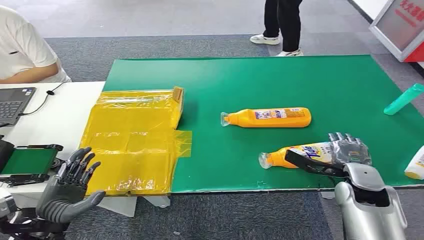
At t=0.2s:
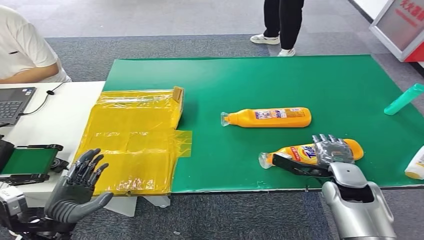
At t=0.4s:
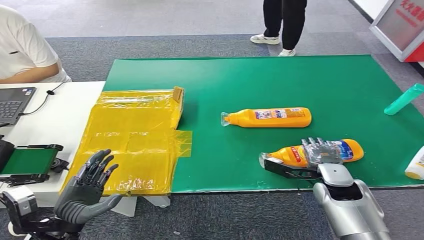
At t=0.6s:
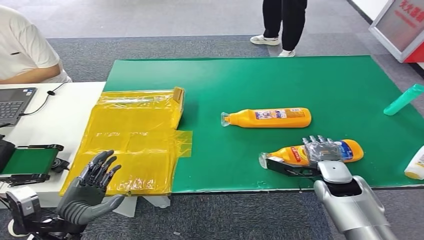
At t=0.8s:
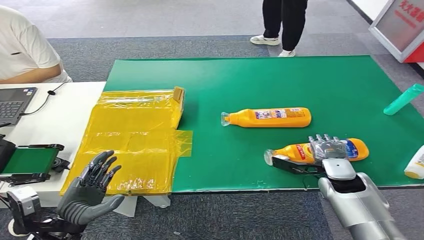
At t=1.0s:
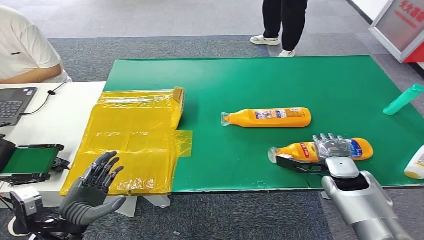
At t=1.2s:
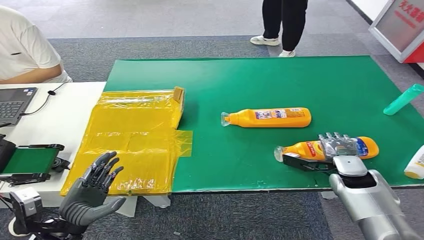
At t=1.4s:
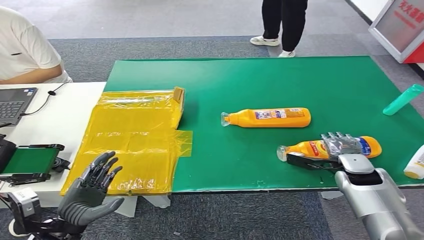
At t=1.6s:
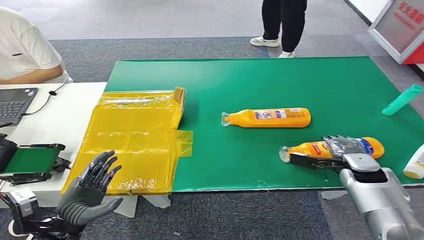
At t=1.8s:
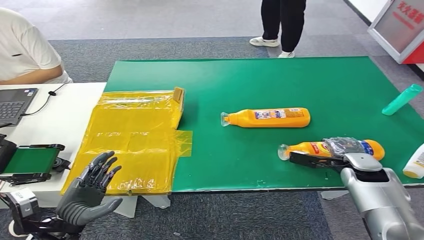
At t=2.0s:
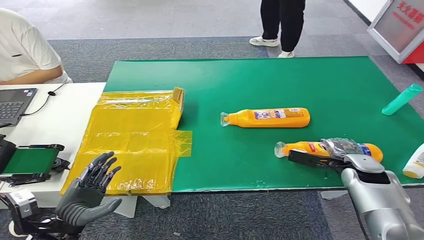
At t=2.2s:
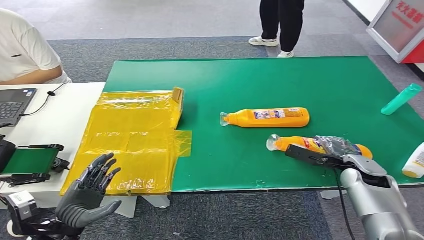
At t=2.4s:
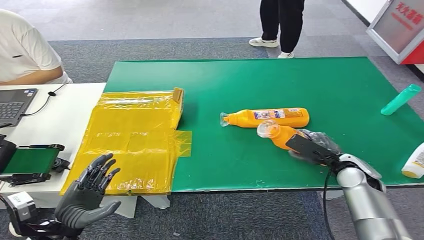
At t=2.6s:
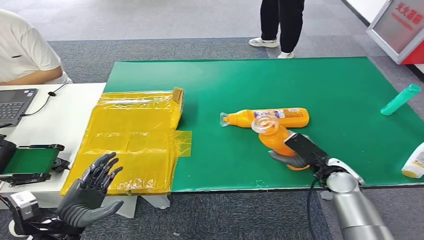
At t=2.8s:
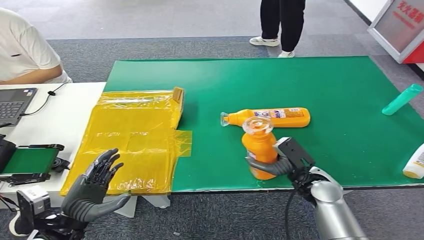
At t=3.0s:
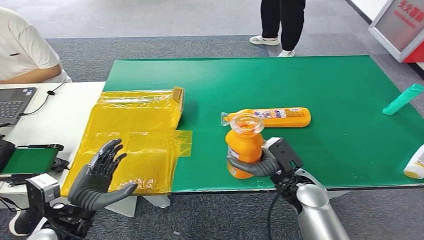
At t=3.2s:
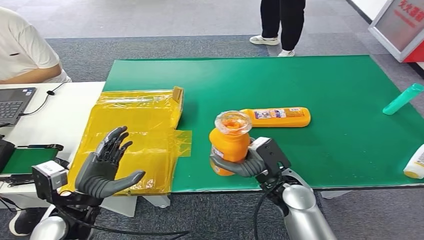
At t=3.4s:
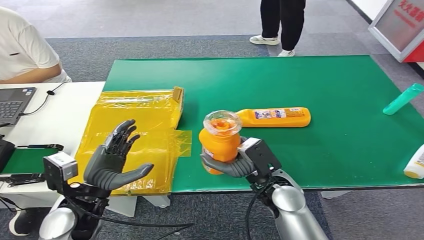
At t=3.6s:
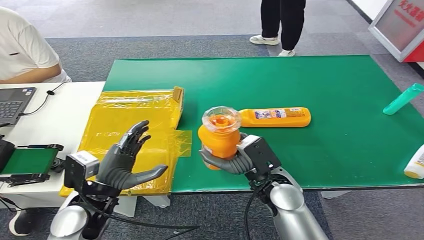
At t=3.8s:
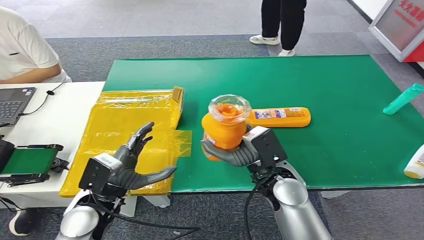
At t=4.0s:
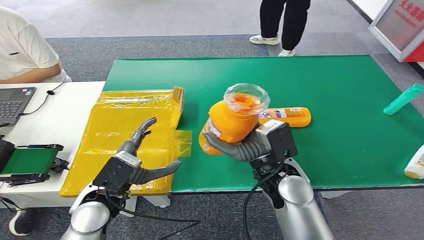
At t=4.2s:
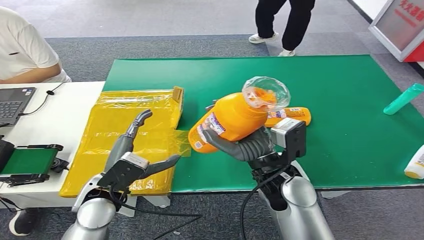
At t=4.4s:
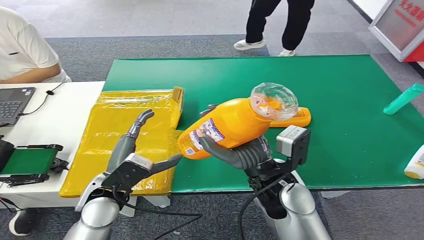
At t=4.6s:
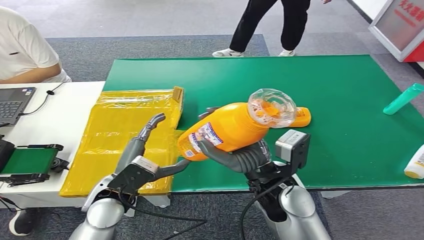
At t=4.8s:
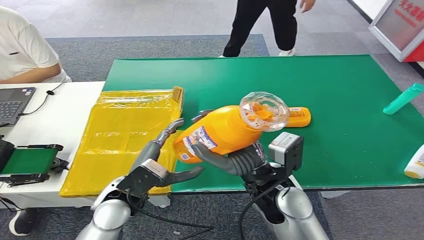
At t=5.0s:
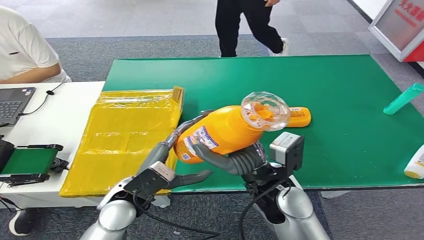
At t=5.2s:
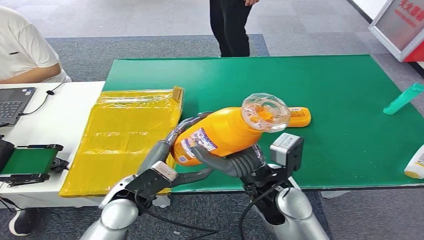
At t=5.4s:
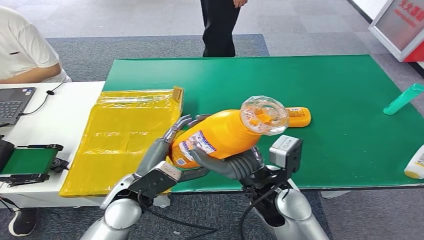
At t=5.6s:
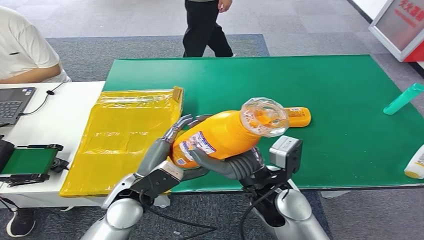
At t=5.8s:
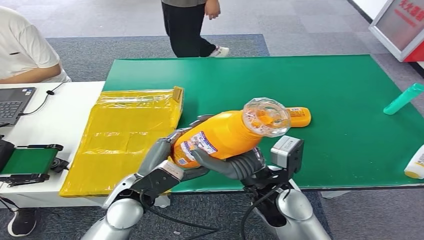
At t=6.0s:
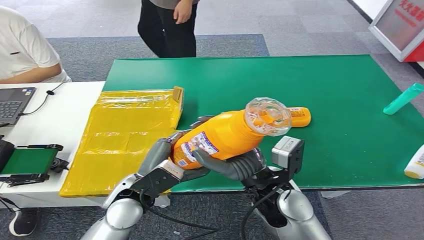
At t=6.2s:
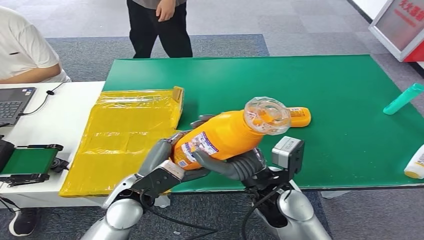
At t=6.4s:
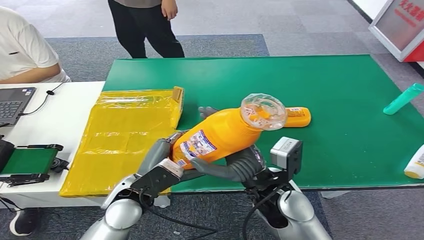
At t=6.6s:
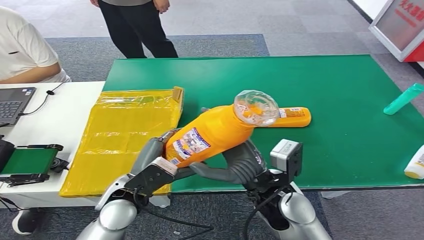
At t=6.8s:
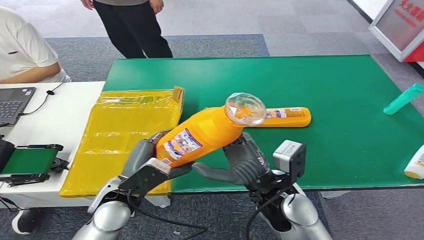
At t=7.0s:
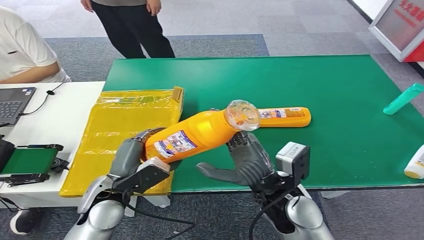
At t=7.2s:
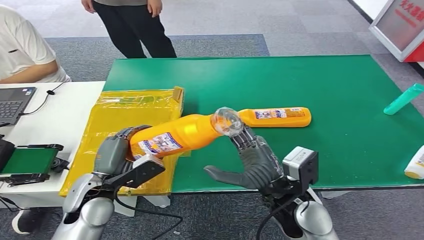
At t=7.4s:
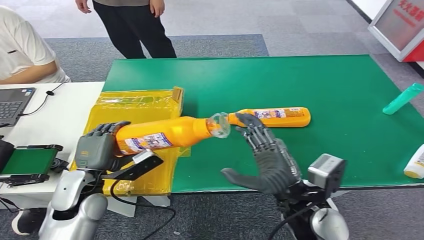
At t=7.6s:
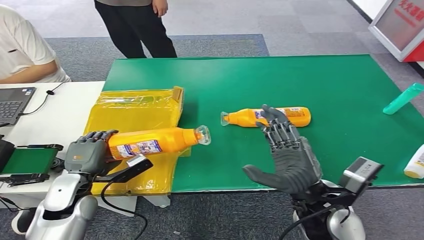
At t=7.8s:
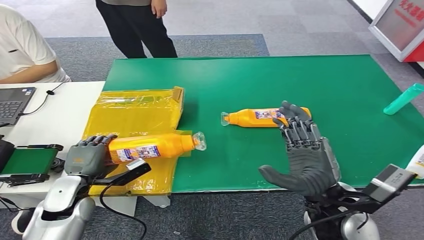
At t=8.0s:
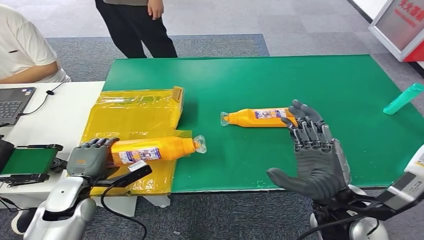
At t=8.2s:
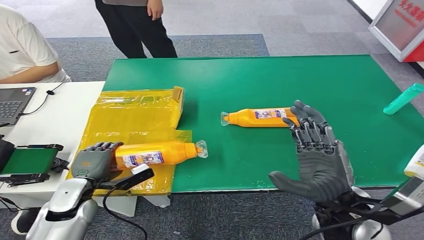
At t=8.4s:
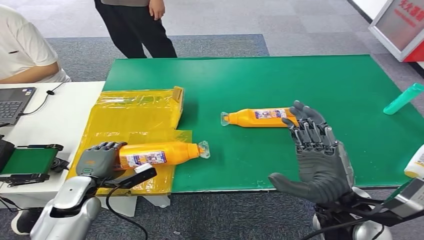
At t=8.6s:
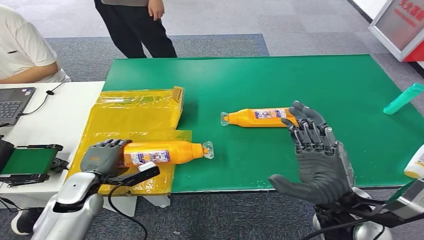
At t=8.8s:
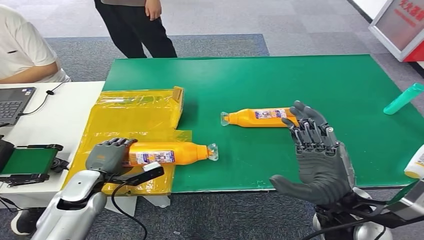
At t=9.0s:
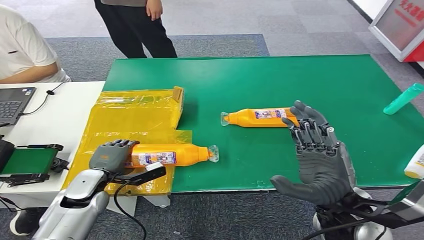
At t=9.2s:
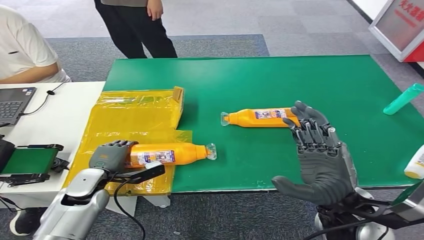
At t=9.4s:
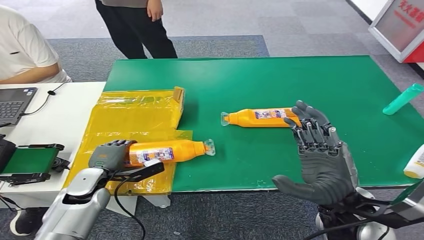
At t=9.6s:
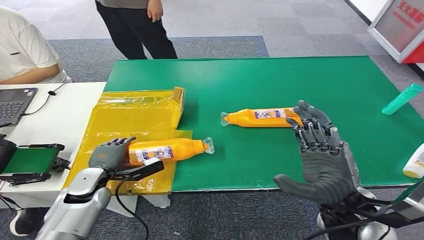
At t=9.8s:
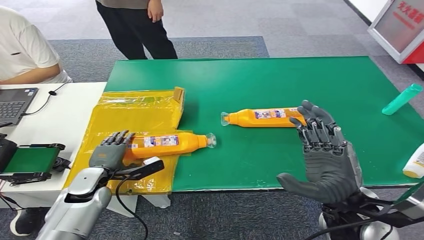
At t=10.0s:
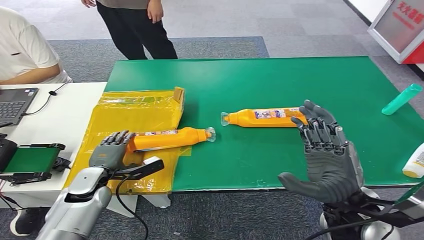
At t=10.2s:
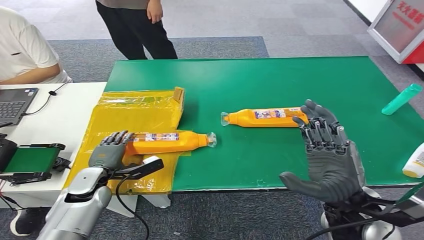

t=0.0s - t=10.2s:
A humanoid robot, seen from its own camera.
Step, t=0.0s - t=3.6s: Pick up the bottle from the table.
t=1.4s - t=3.0s: The right hand moves to the left and backward, about 15 cm.
t=8.8s - t=10.2s: The hands make only small movements.

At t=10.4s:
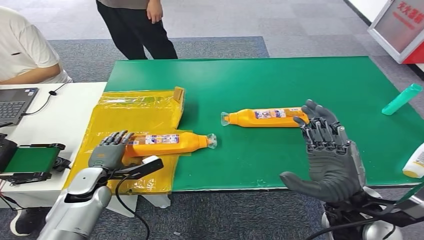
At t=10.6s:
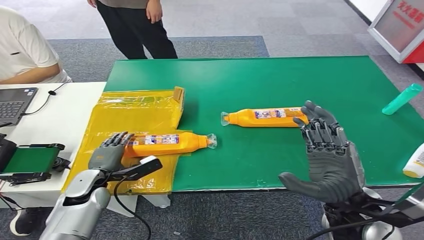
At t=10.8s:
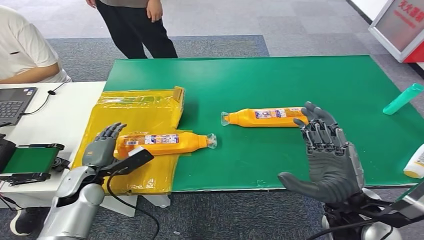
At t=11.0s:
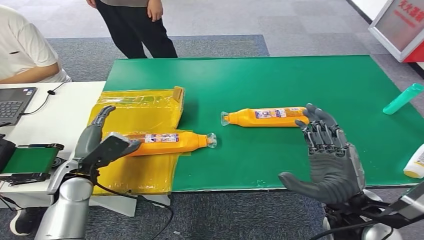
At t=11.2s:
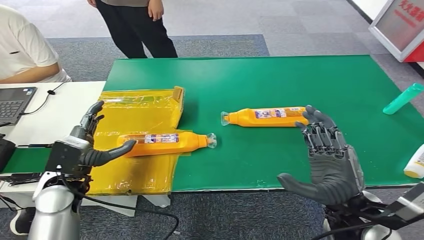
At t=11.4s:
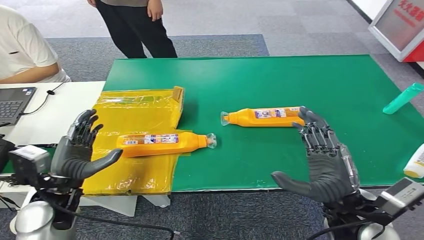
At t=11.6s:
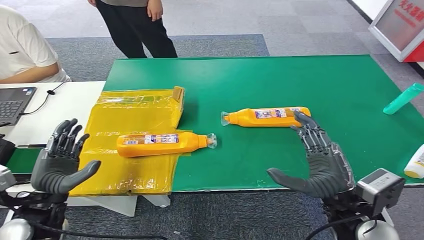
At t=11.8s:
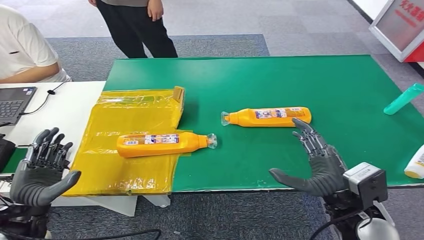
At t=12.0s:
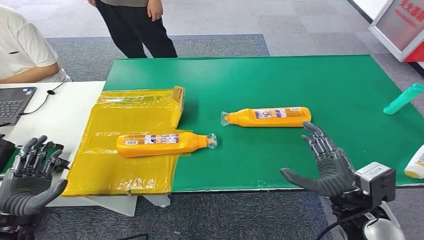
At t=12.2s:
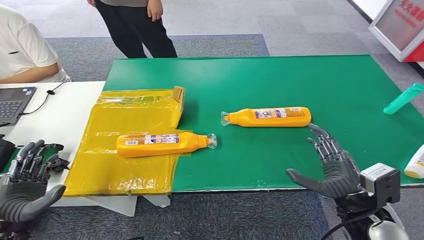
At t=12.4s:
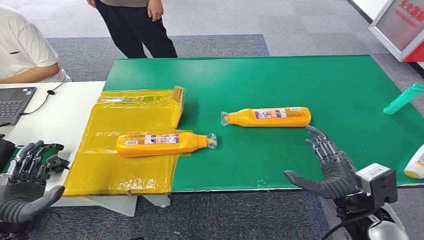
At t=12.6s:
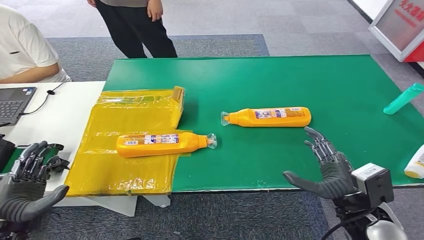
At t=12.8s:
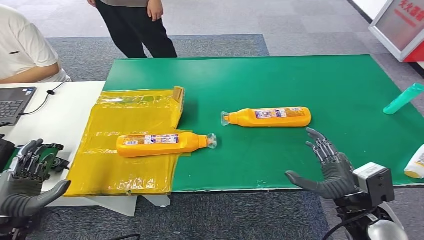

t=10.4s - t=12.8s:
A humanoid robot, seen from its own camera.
Step, t=10.4s - t=12.8s: Turn the bottle to the front side.
t=10.4s - t=11.6s: The left hand heads upward and backward, covering some 15 cm.
t=11.6s - t=12.8s: The left hand is displaced to the left and backward by roughly 10 cm, while the right hand goes some 5 cm downward.

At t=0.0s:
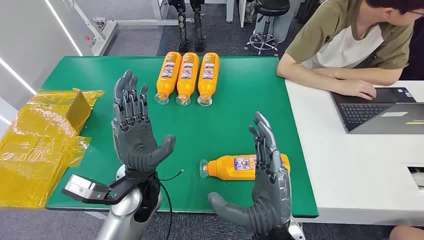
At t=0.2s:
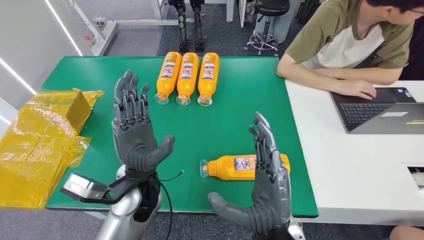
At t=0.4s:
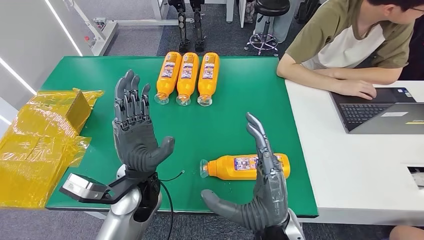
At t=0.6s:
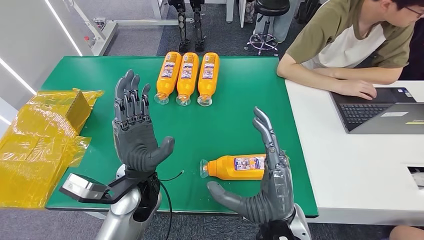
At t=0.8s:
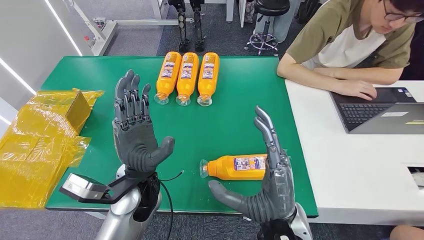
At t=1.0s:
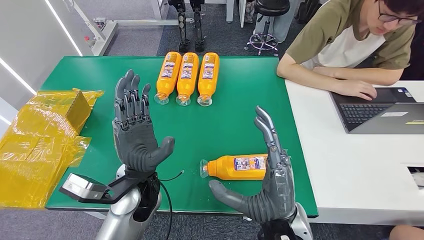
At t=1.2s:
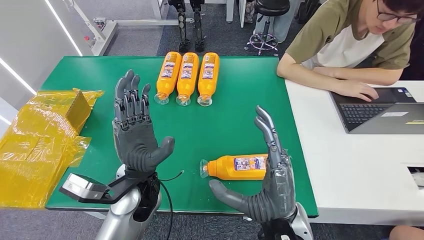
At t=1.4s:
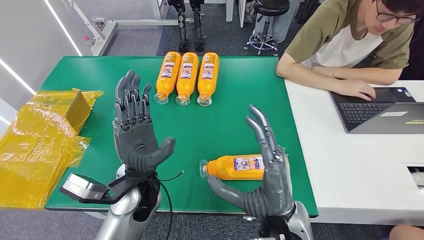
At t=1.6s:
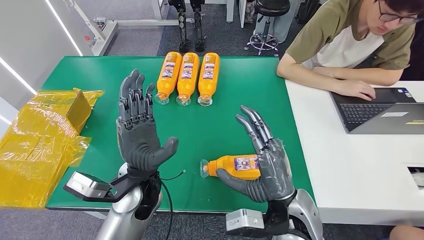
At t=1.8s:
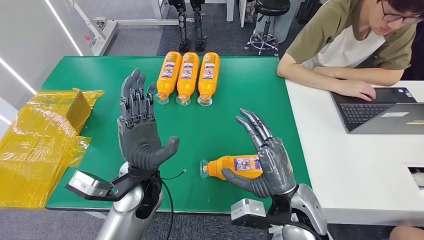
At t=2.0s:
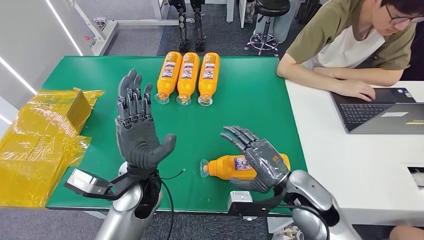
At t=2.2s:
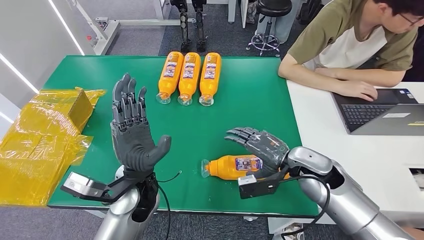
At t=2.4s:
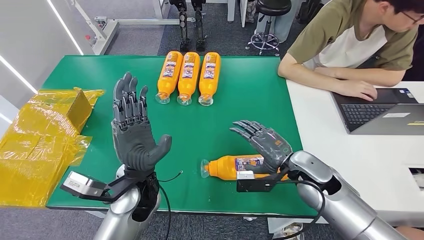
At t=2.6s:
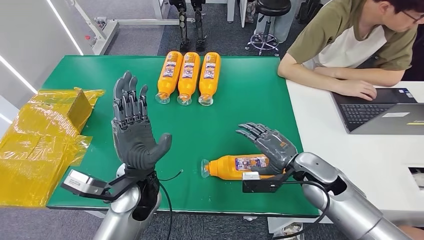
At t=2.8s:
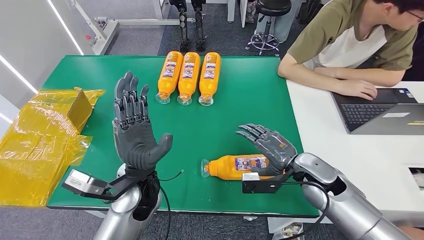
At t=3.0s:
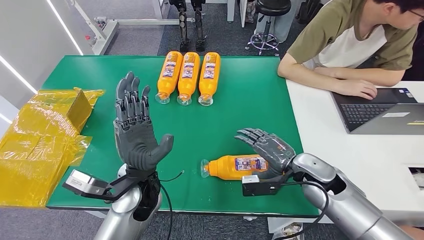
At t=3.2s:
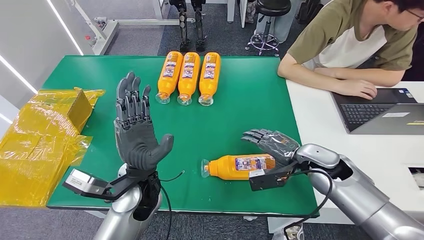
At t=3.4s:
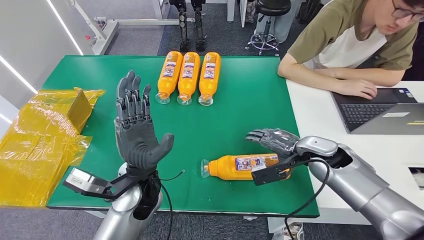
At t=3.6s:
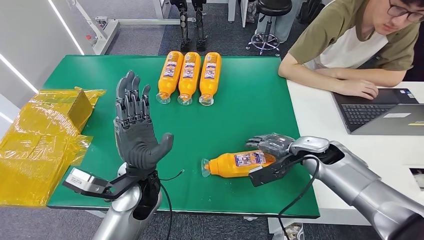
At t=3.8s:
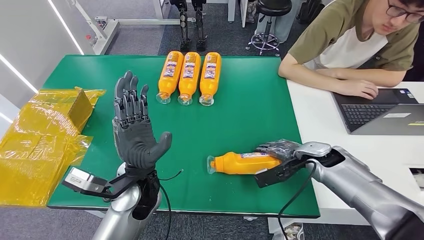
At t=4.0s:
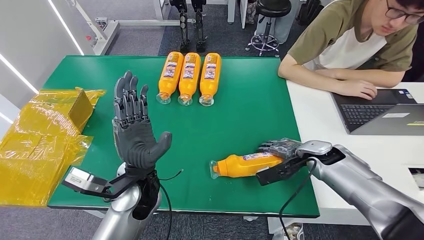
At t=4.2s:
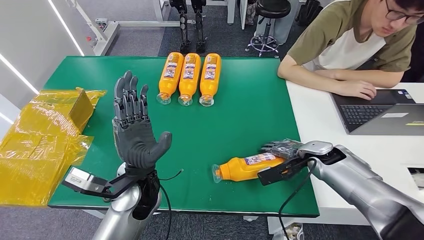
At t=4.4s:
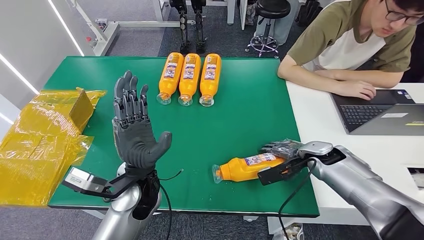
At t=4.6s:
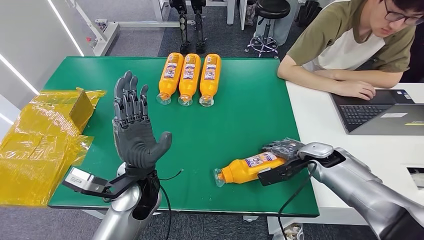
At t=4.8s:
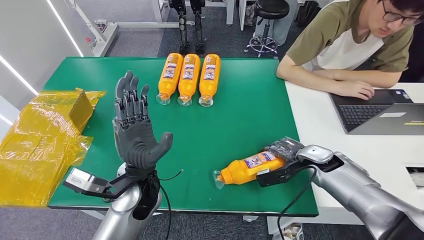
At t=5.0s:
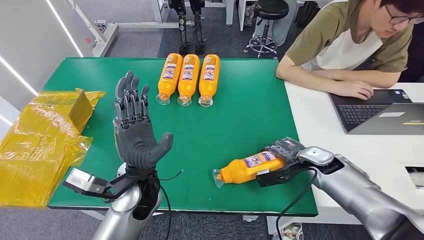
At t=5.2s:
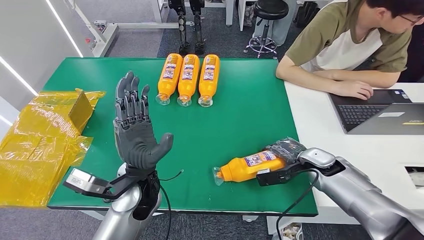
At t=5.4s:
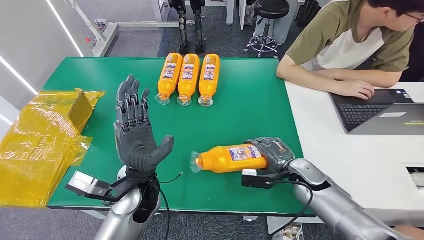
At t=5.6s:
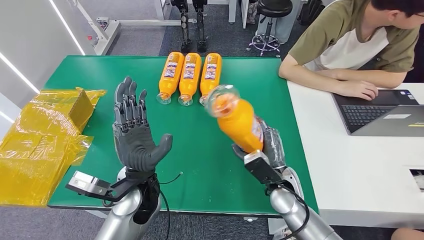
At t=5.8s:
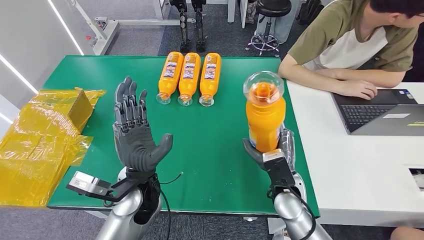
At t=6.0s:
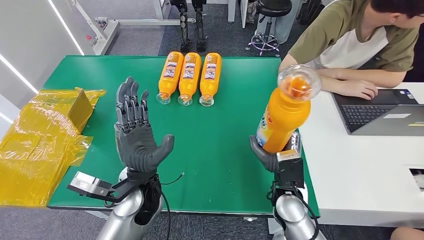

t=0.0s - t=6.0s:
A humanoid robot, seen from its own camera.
t=1.6s - t=3.0s: The right hand is displaced to the right and forward by some 15 cm.
